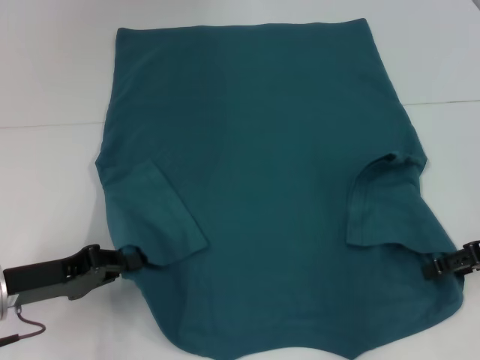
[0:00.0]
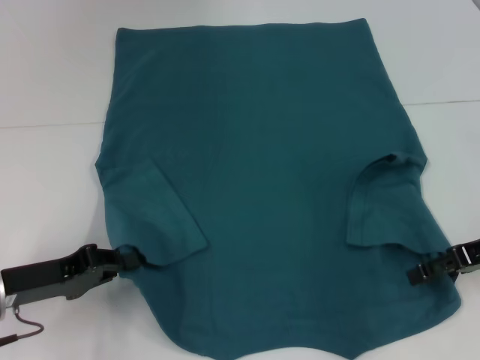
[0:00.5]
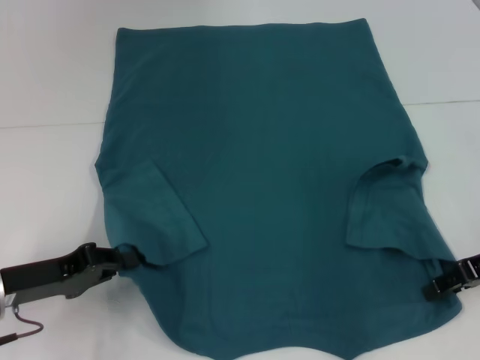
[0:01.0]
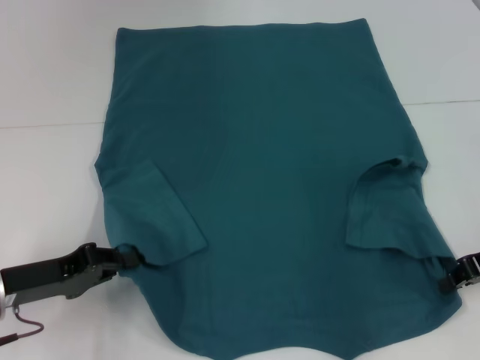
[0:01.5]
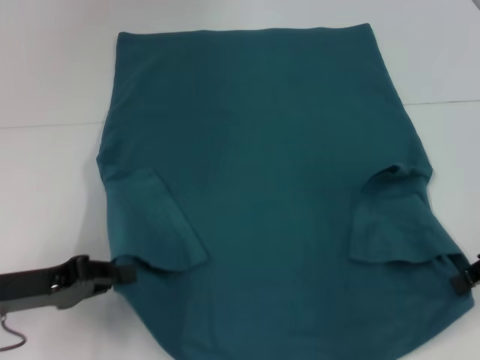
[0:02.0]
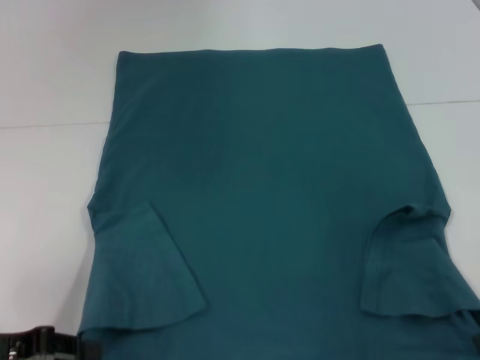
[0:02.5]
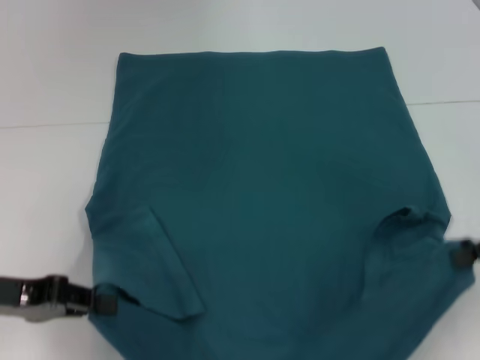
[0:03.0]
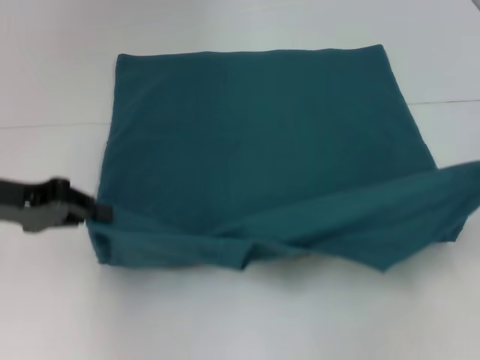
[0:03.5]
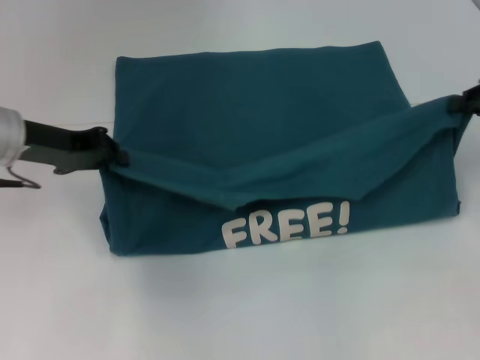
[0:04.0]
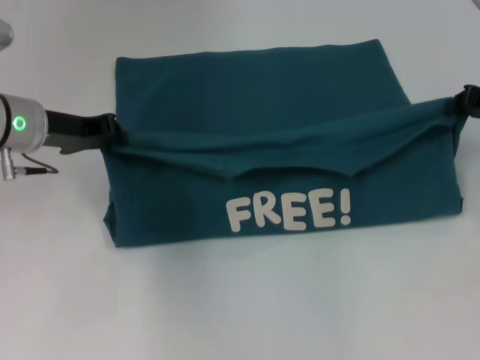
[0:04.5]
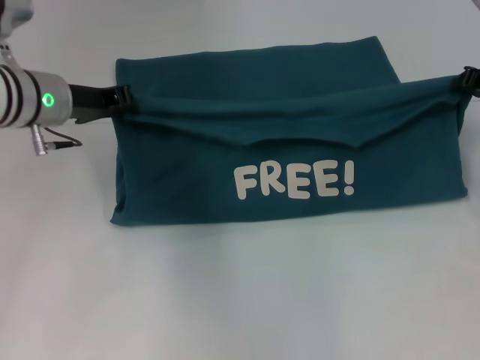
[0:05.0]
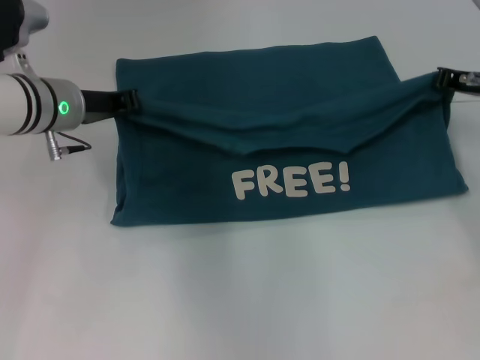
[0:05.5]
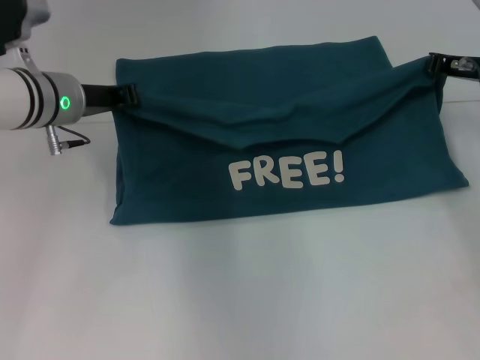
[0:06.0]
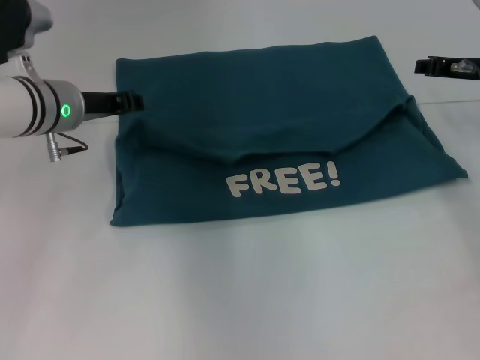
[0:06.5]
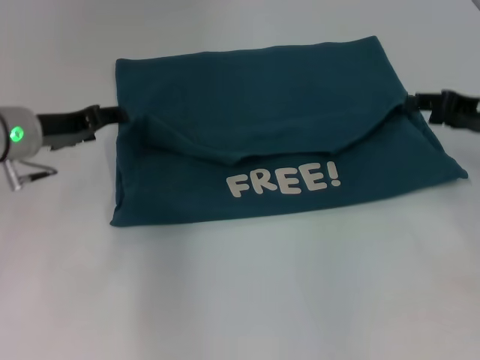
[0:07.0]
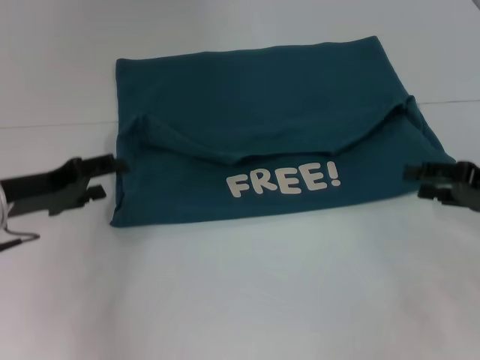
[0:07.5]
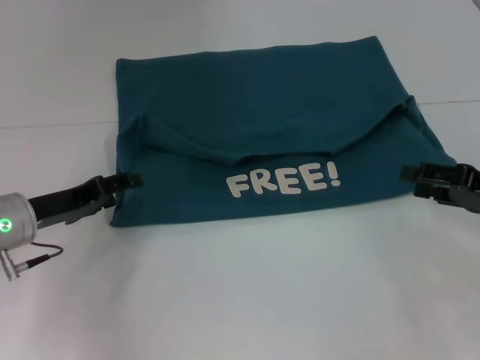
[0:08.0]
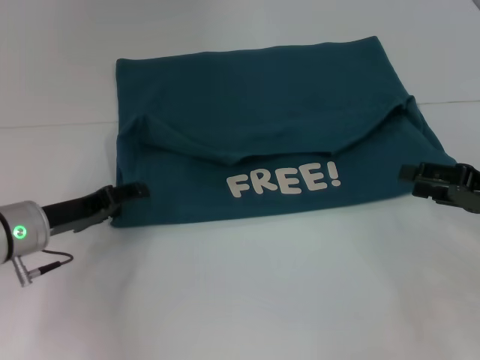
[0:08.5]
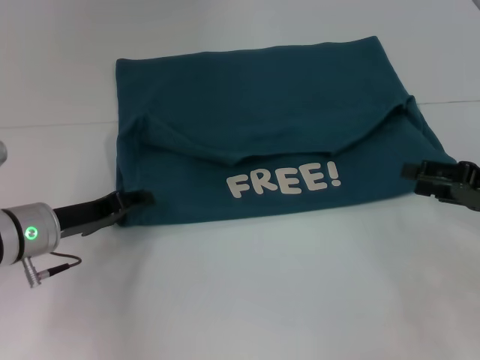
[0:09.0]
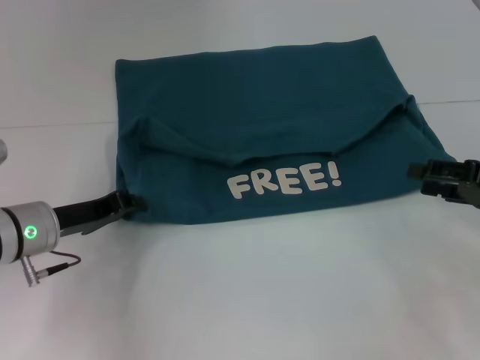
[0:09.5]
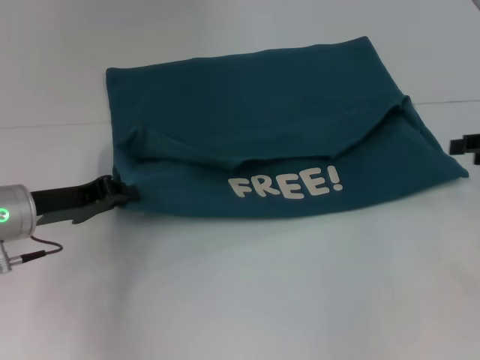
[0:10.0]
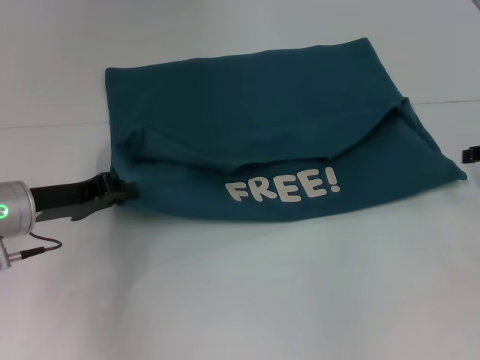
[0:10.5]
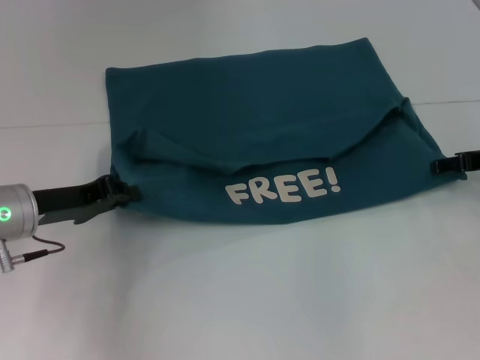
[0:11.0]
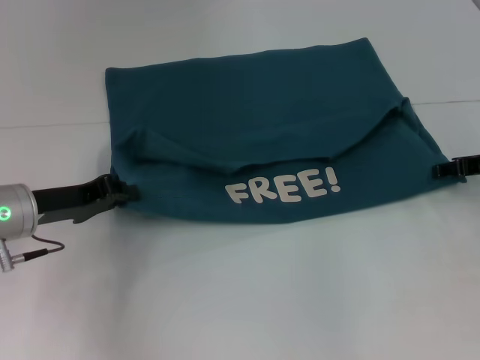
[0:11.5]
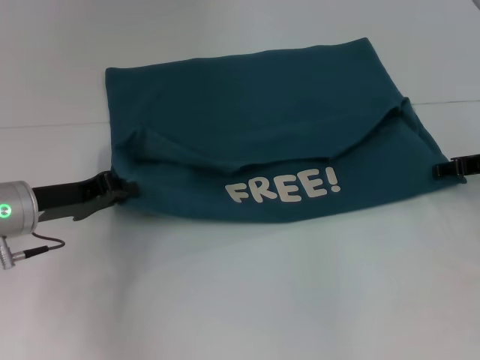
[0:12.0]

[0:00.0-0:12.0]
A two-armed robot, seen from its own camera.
Step, 0:02.0 to 0:06.5: Fold the clothes to the left.
Step, 0:02.0 to 0:06.5: Fold the clothes to the right.
0:00.0 to 0:02.0: The right gripper closes.
0:02.0 to 0:04.0: The left gripper shifts about 15 cm forward and upward. The right gripper shifts roughly 10 cm forward.
0:04.0 to 0:06.0: The left gripper moves to the right, approximately 5 cm. The right gripper goes about 10 cm forward and to the left.
0:06.0 to 0:08.0: The right gripper moves backward, some 15 cm, and opens. Meanwhile the left gripper heads backward, downward and to the left, covering roughly 15 cm, and opens its fingers.
0:08.0 to 0:10.0: The right gripper moves upward, about 5 cm; the left gripper closes.
0:10.0 to 0:12.0: The right gripper moves approximately 10 cm.

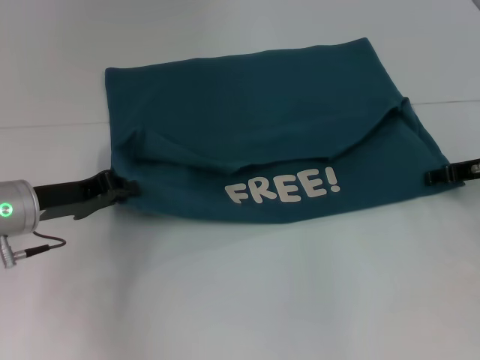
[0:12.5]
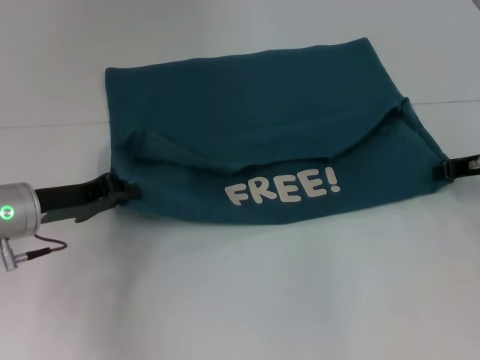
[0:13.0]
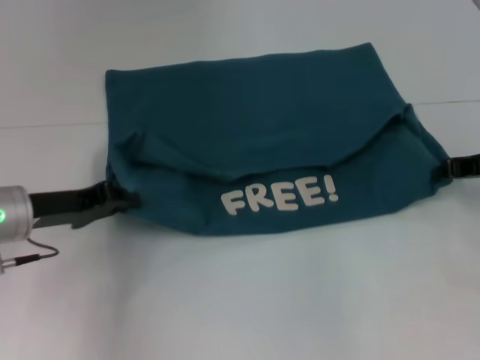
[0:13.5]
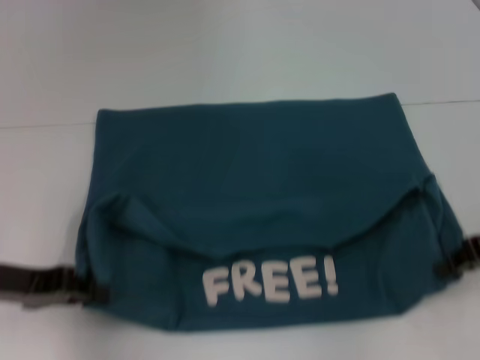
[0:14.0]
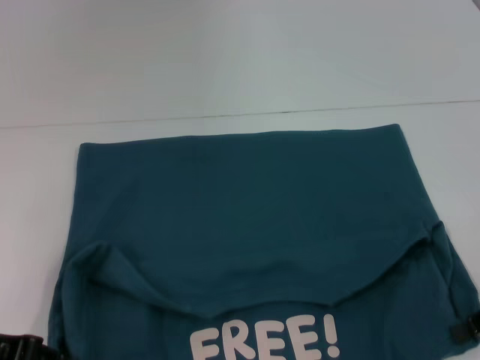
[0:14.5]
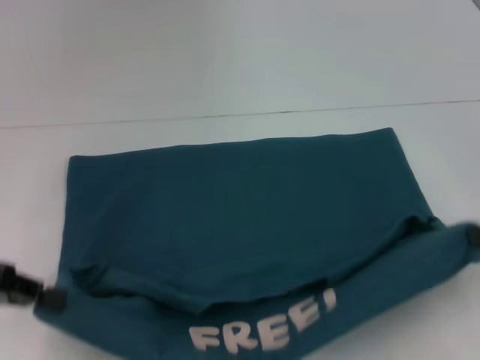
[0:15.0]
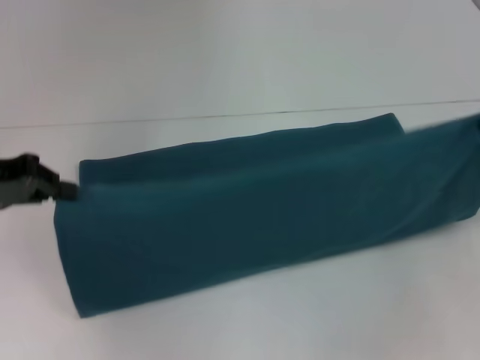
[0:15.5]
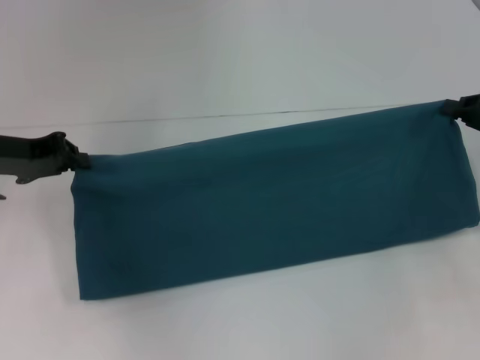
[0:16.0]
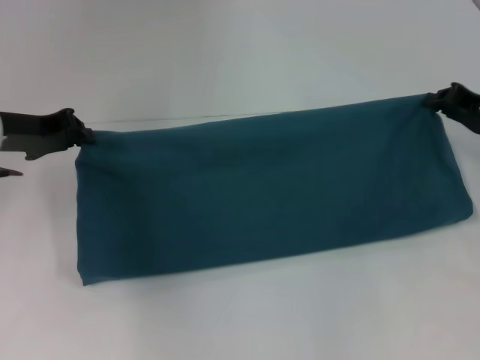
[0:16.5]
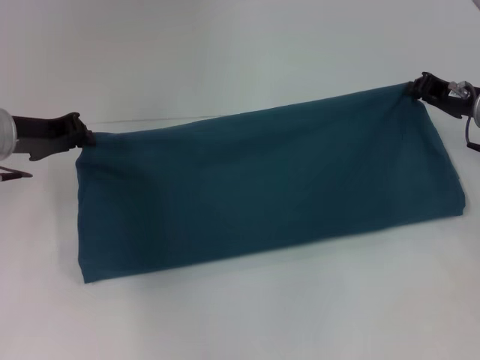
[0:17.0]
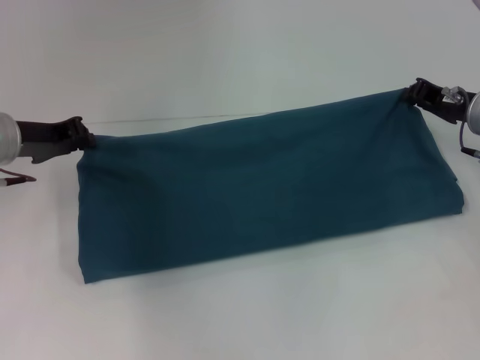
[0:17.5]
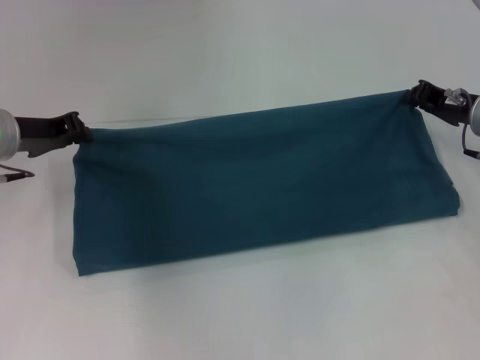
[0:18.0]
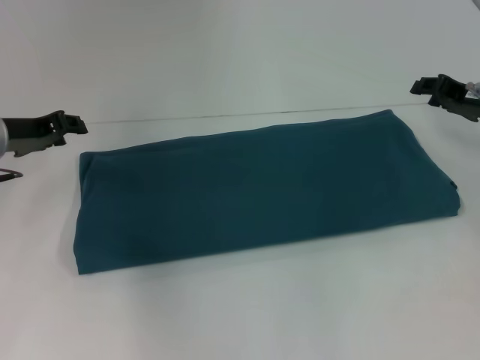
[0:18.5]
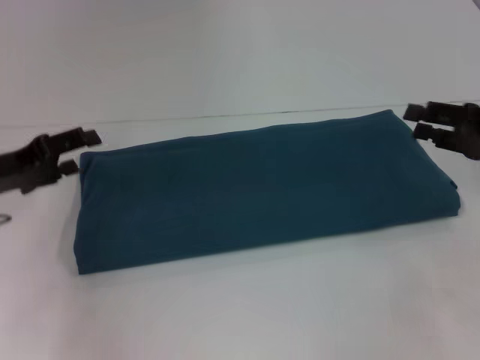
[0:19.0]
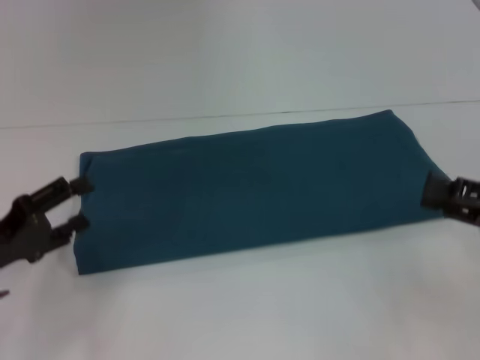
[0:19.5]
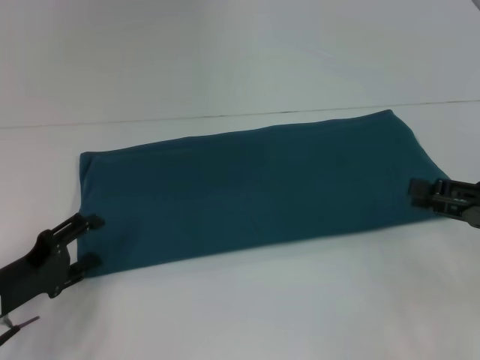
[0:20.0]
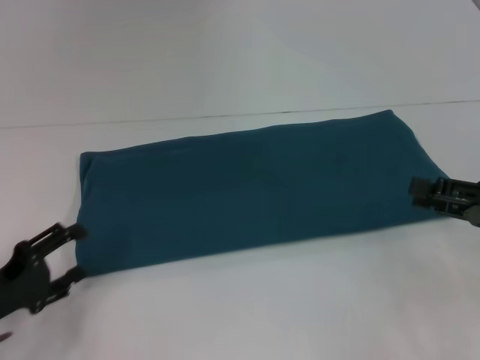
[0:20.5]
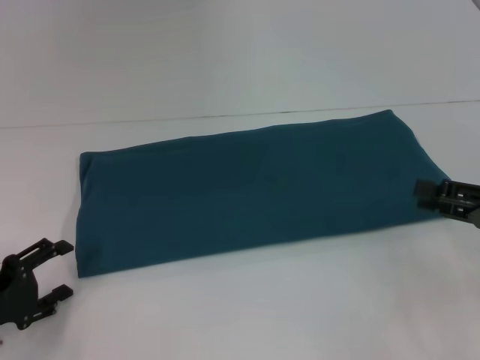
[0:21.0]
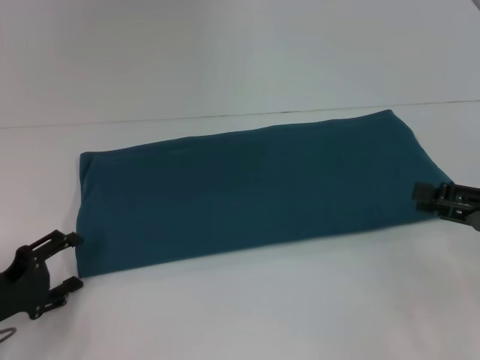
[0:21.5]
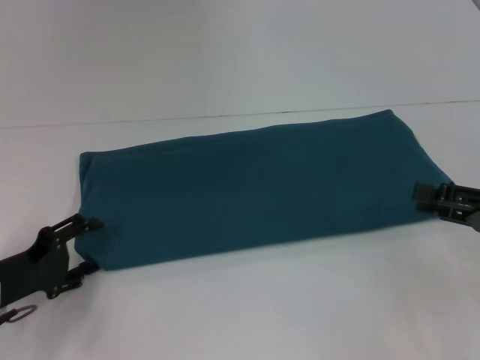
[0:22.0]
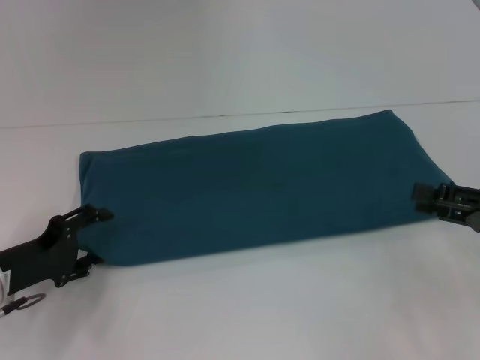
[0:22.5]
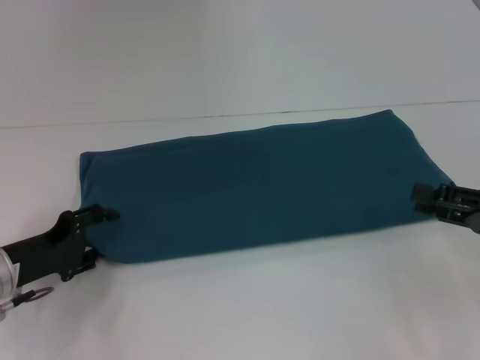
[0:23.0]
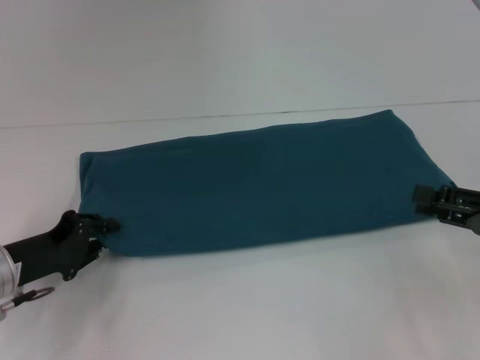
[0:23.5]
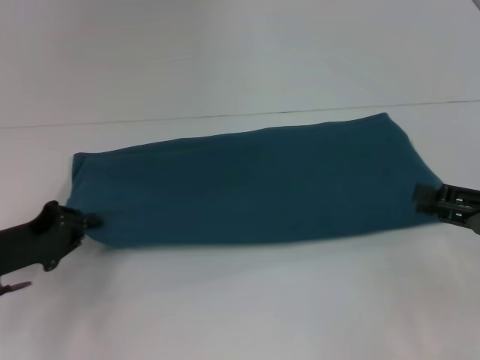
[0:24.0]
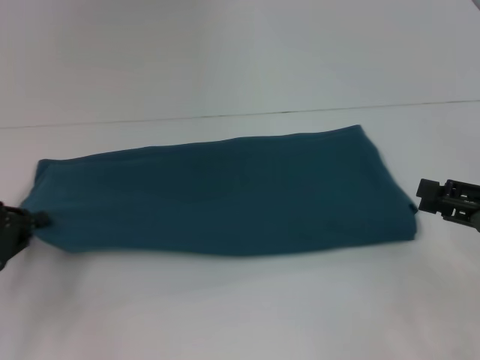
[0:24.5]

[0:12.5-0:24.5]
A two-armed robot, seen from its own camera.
Step, 0:14.5 to 0:18.5: Fold the clothes to the right.
0:12.5 to 0:14.5: The left gripper heads backward and to the left, covering roughly 10 cm. Meanwhile the right gripper goes about 15 cm backward, and closes.
0:14.5 to 0:16.5: Both grippers move forward, roughly 15 cm.
0:16.5 to 0:18.5: The grippers make only small movements.
0:18.5 to 0:20.5: The right gripper goes approximately 15 cm backward. Meanwhile the left gripper shifts about 20 cm backward and downward, and opens up.
0:20.5 to 0:22.5: The left gripper changes place by approximately 5 cm.
0:22.5 to 0:24.5: The left gripper shifts roughly 5 cm to the left, and closes its fingers.

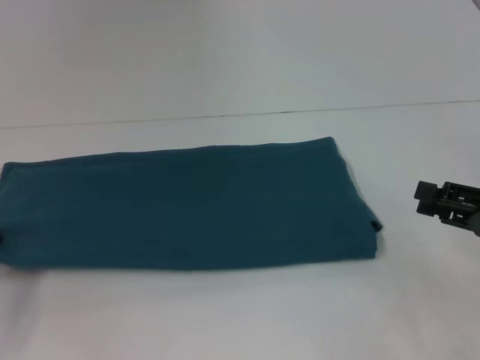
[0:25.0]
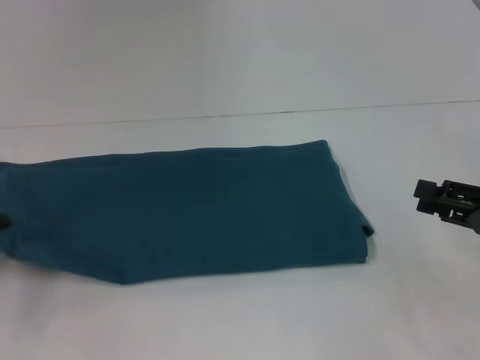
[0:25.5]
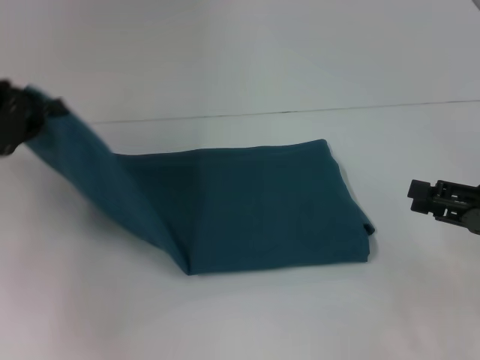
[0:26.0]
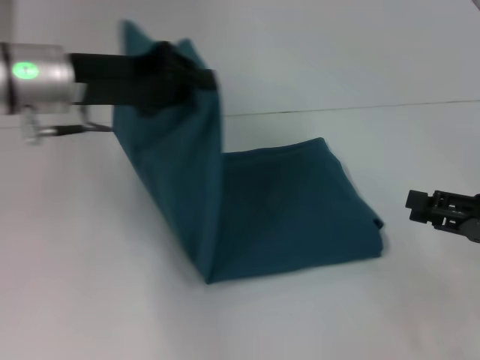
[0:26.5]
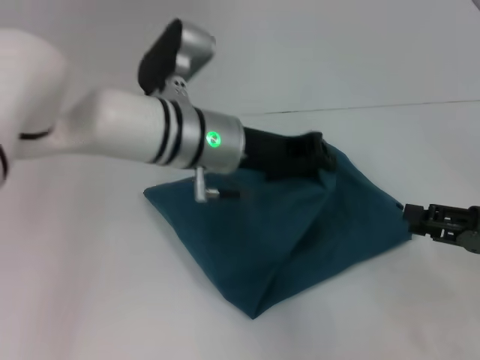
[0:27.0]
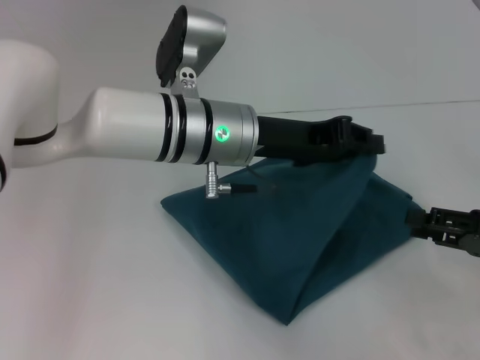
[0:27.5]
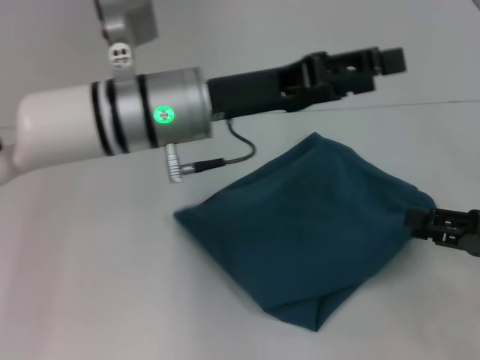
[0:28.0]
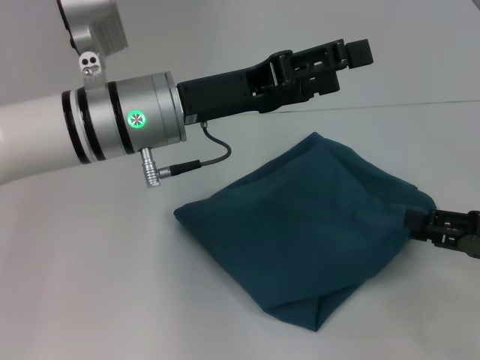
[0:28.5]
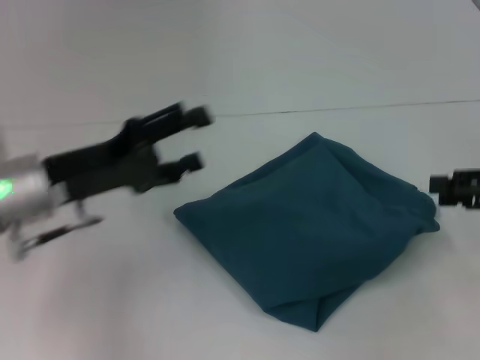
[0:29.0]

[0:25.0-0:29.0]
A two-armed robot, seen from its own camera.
Step, 0:25.0 to 0:28.0: Fold the clothes to the left.
0:25.0 to 0:27.0: The left gripper goes about 35 cm to the right.
0:27.0 to 0:29.0: The right gripper heads upward, covering some 5 cm, while the left gripper heads to the left, covering some 15 cm, and opens its fingers.
